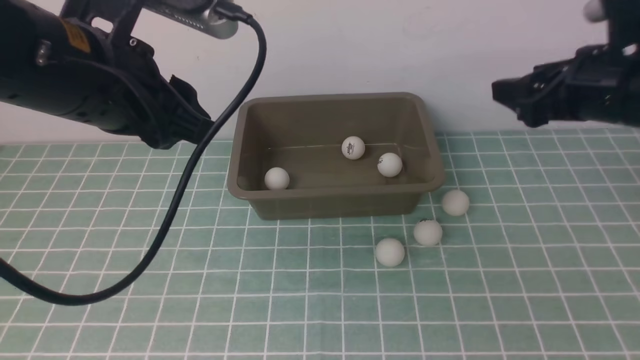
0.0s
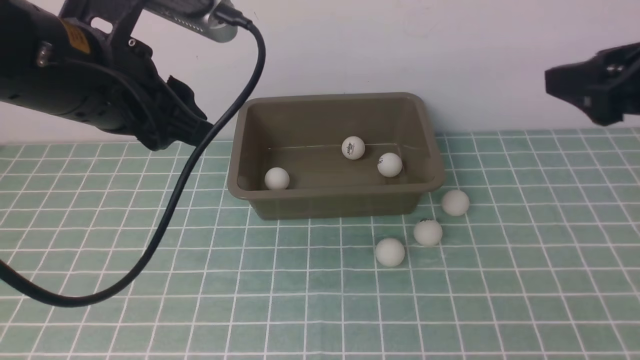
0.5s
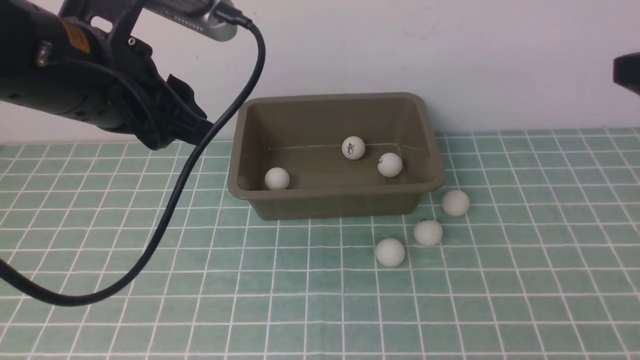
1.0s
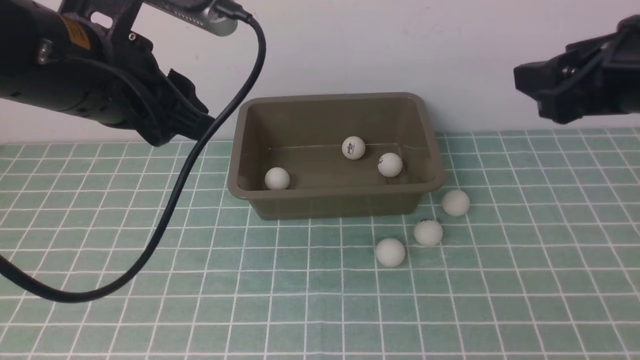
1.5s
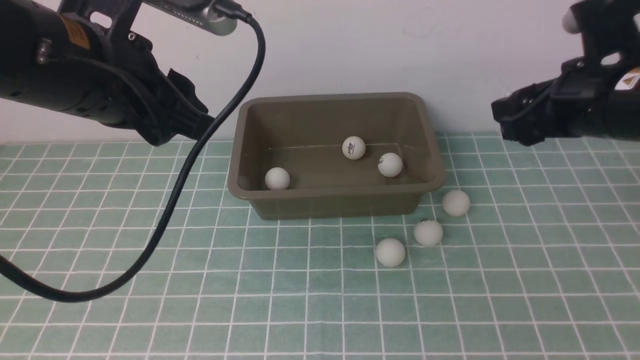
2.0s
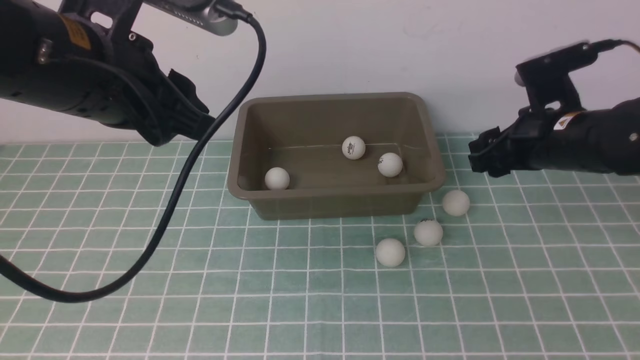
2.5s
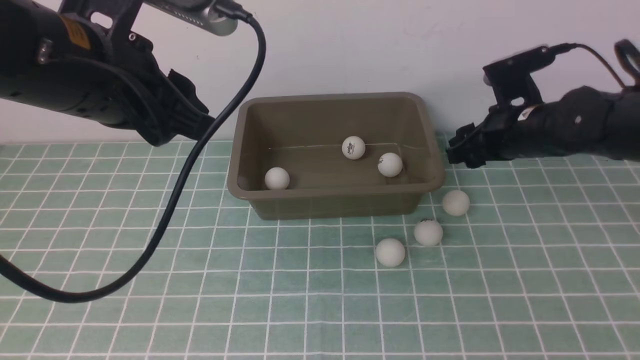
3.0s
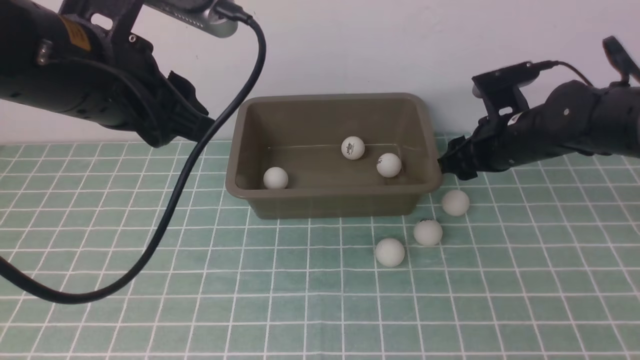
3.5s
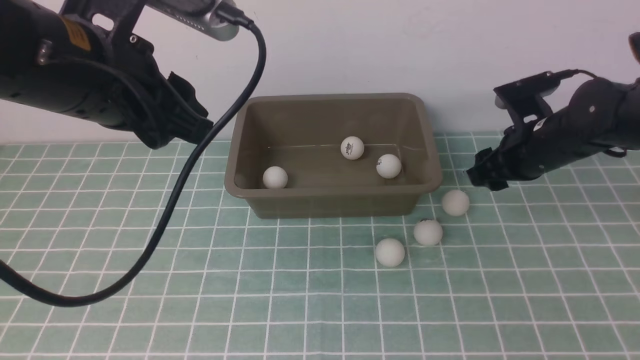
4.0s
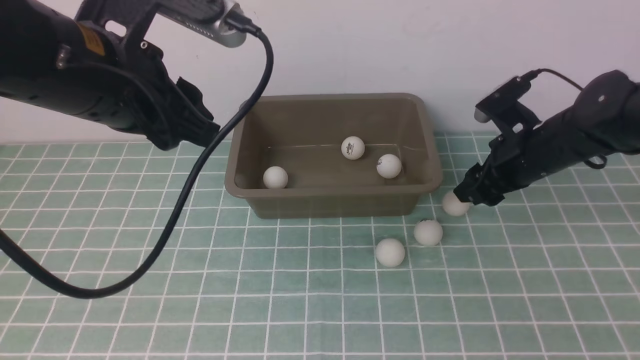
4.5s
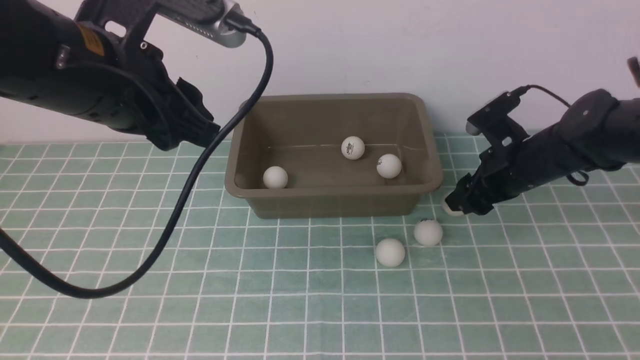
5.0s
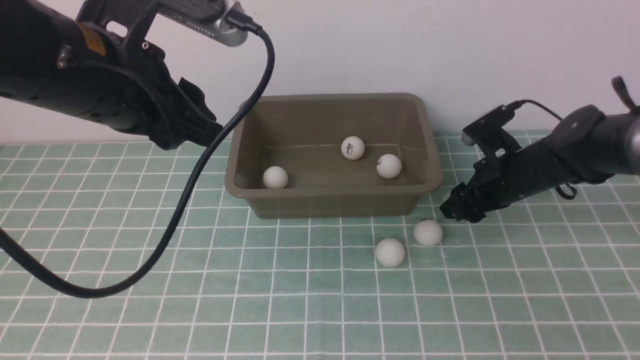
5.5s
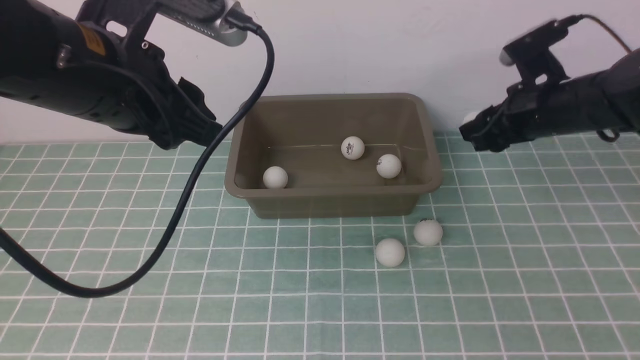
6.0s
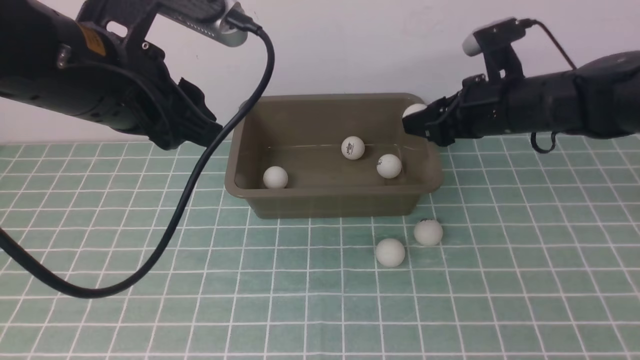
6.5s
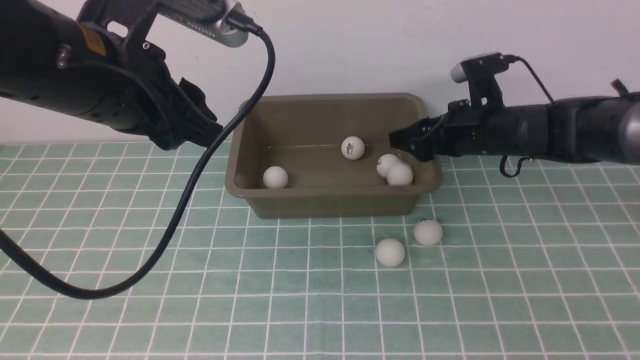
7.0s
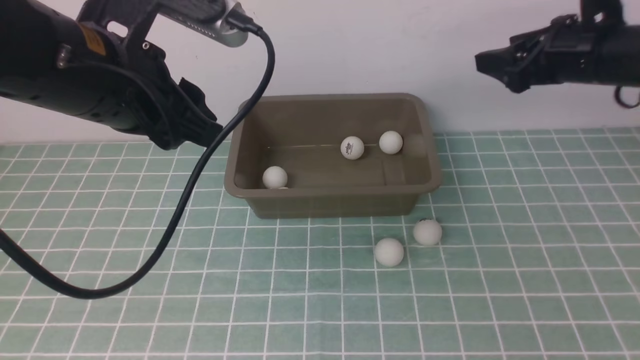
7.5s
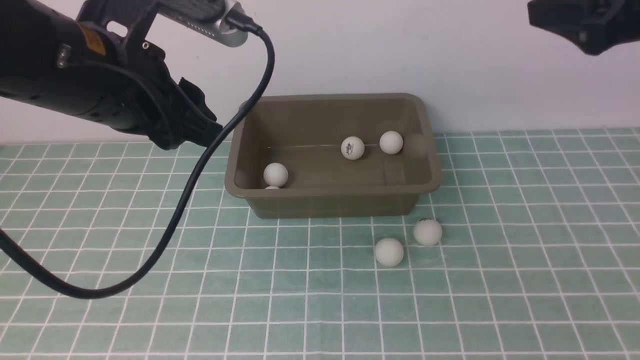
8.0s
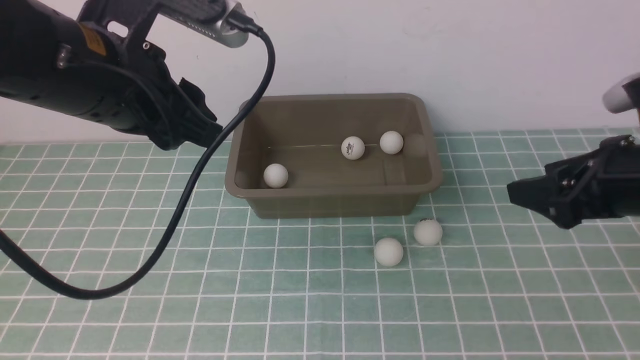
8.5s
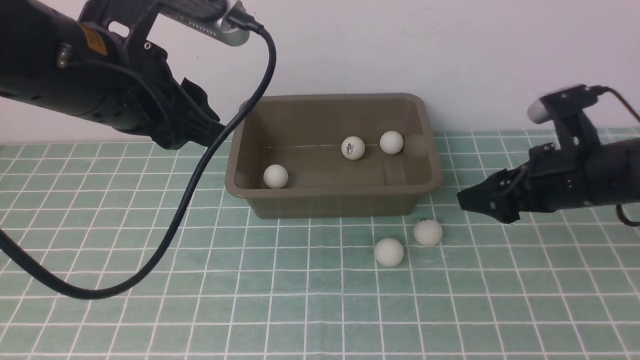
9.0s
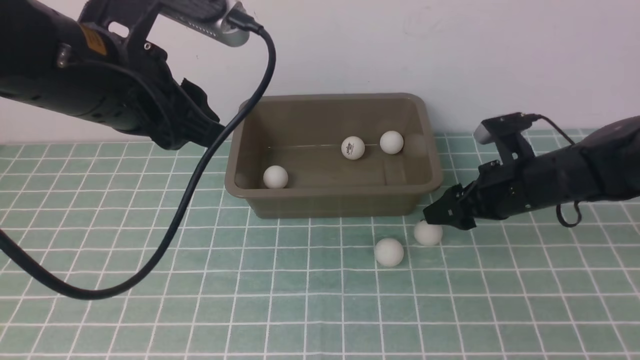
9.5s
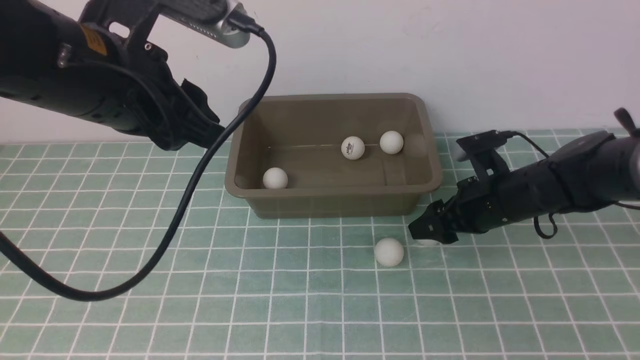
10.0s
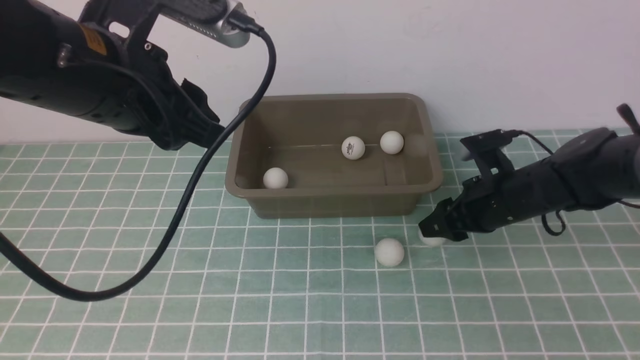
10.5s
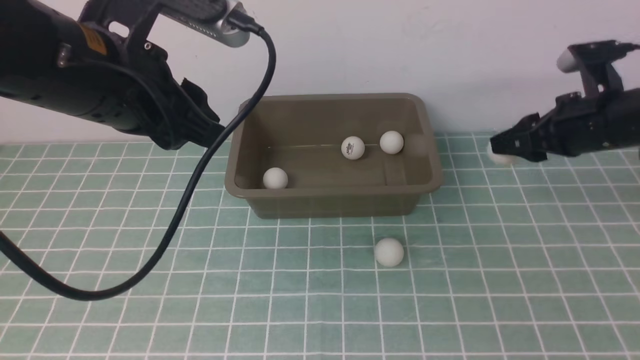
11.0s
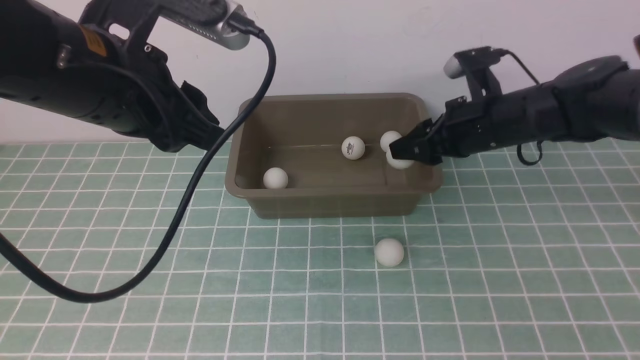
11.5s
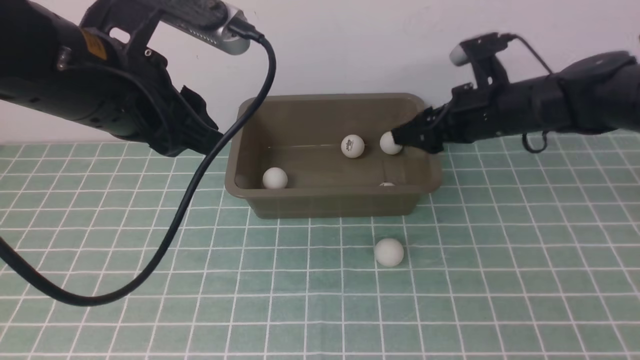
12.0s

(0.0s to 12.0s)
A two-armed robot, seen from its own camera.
Step, 0.0s - 5.5s: use the right arm to clamp the table tennis ball closest to it.
Step, 6.5s - 7.0s: use the right arm to put the table tennis ball into the box.
Step, 7.5s - 10.5s: use the right arm to clamp the table tennis ball closest to it.
Step, 11.0s - 11.5s: use the right arm to put the table tennis ball into the box.
0.0s - 2.0s: The right gripper shifts about 15 cm downward and forward.
2.0s - 4.0s: The right gripper moves downward and forward, approximately 10 cm.
4.0s - 6.0s: The right gripper goes some 5 cm upward.
6.0s - 8.0s: The right gripper is displaced backward, upward and to the right by roughly 20 cm, and opens.
8.0s - 10.0s: The right gripper shifts roughly 25 cm downward and forward.
10.0s - 12.0s: The right gripper goes about 15 cm upward, and closes, then opens again.

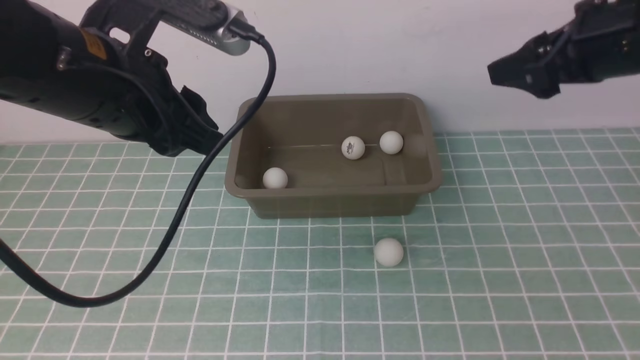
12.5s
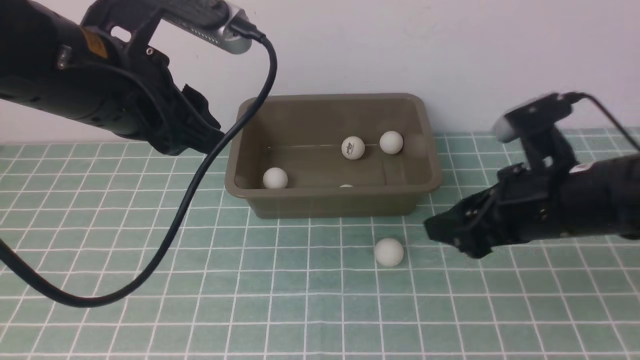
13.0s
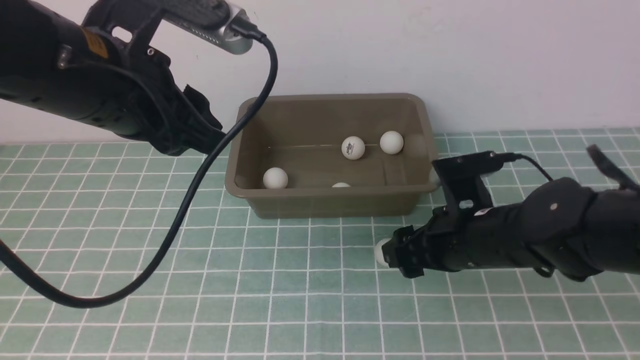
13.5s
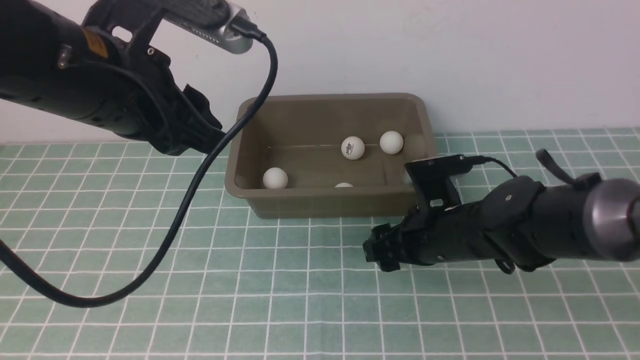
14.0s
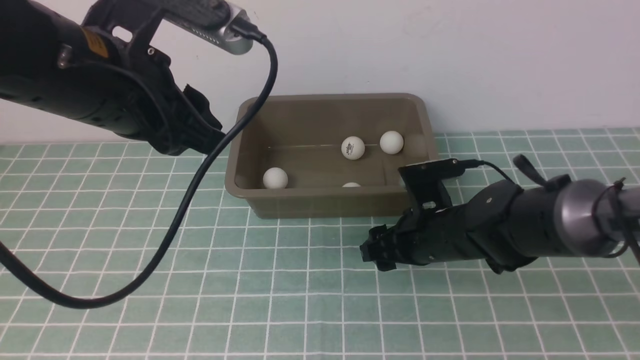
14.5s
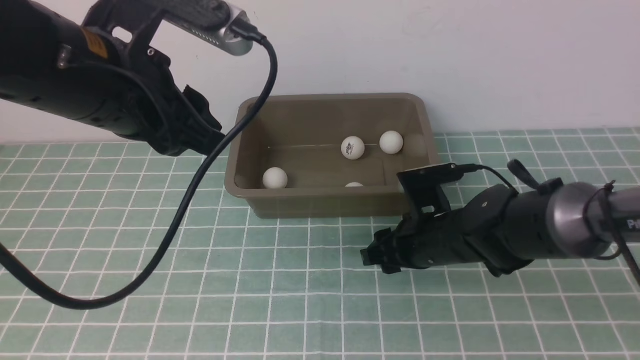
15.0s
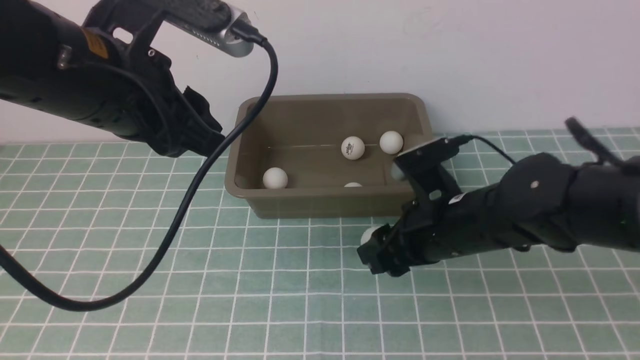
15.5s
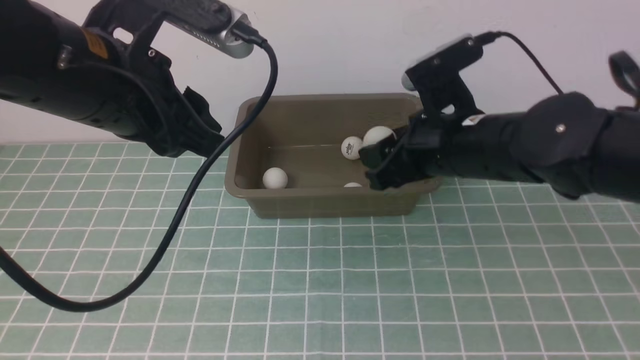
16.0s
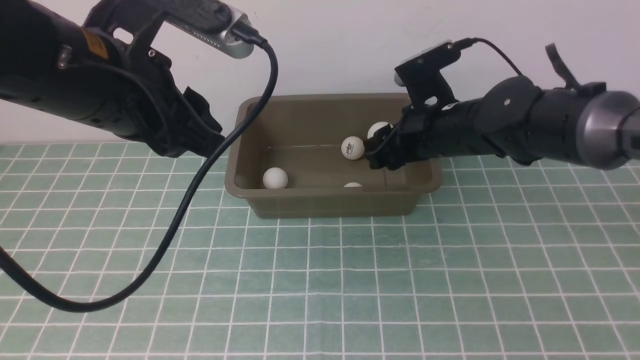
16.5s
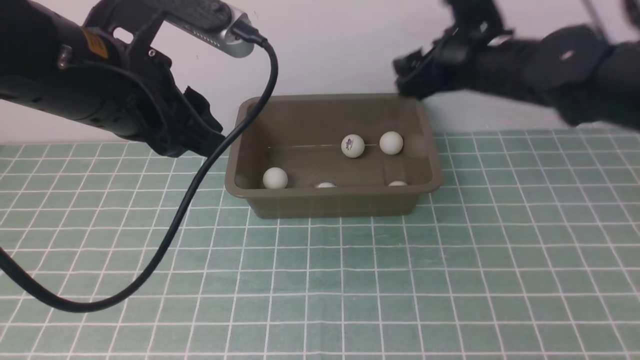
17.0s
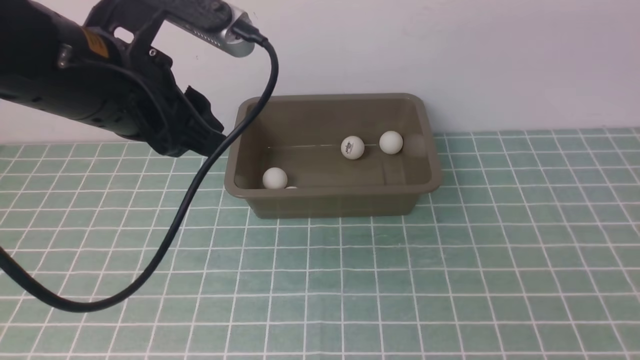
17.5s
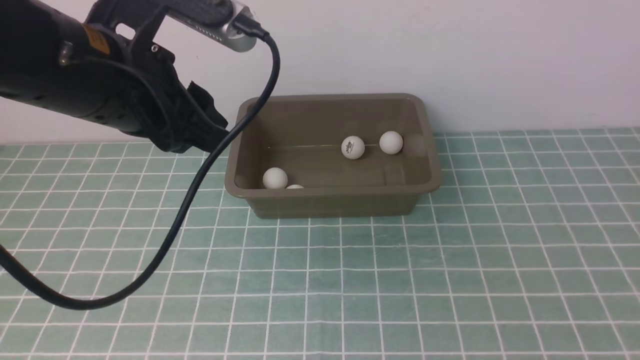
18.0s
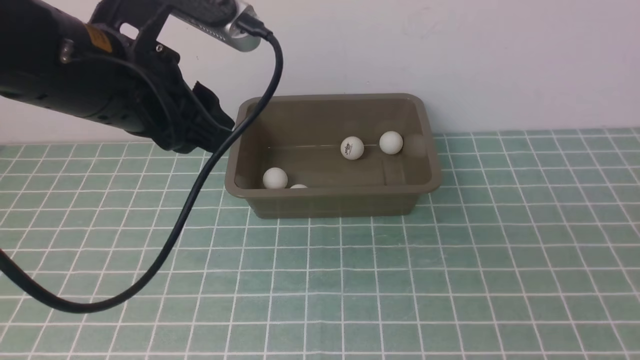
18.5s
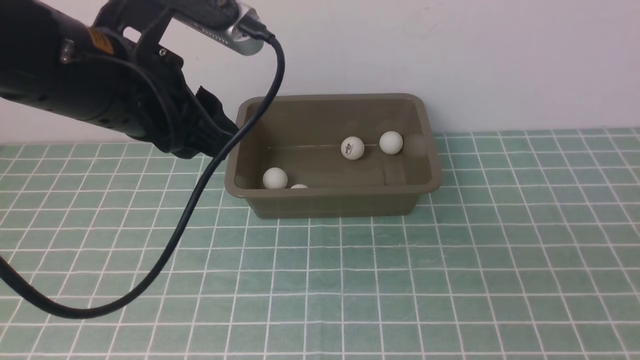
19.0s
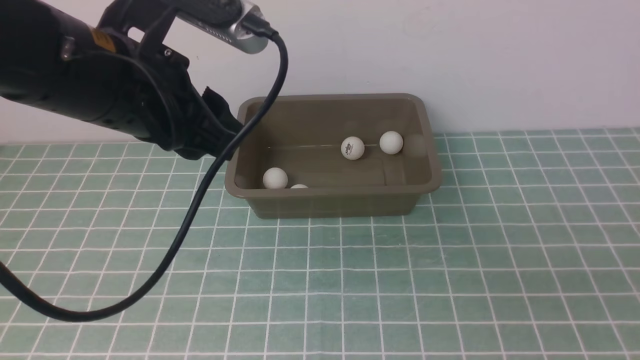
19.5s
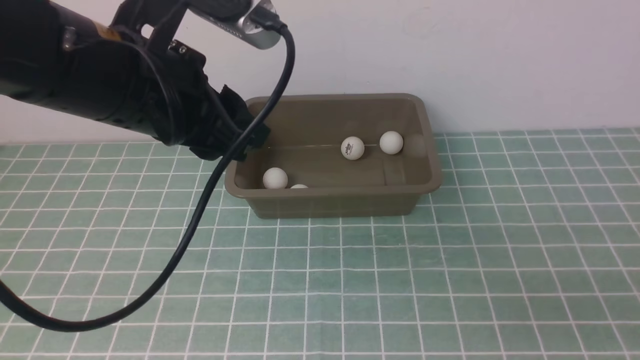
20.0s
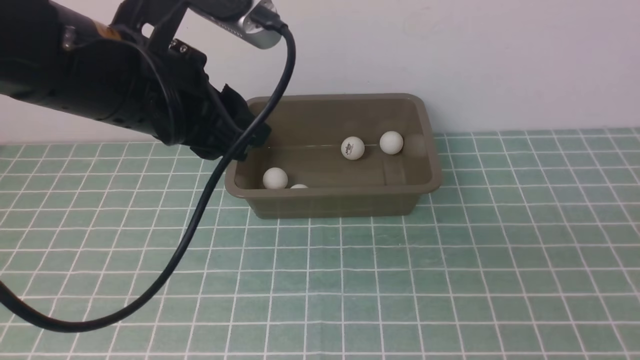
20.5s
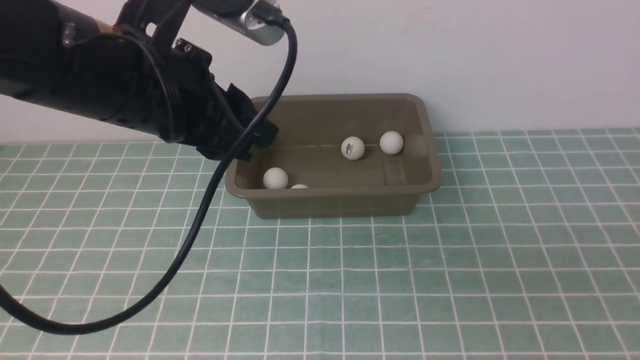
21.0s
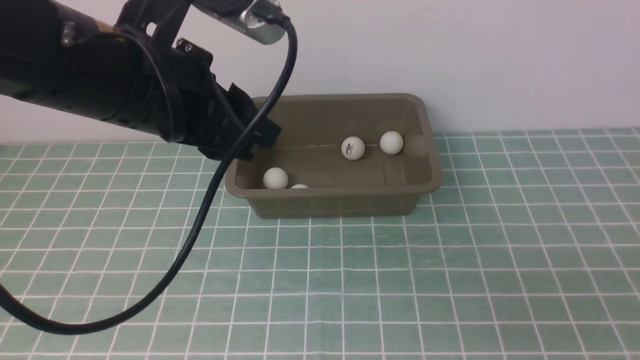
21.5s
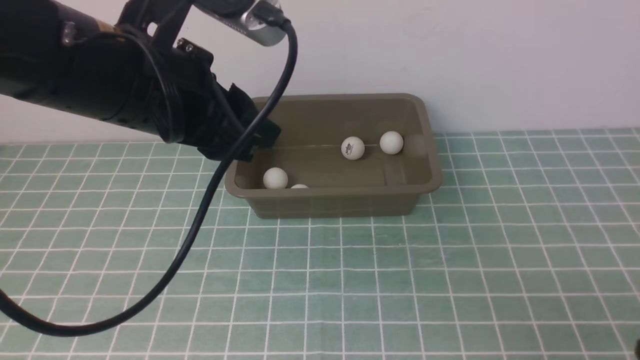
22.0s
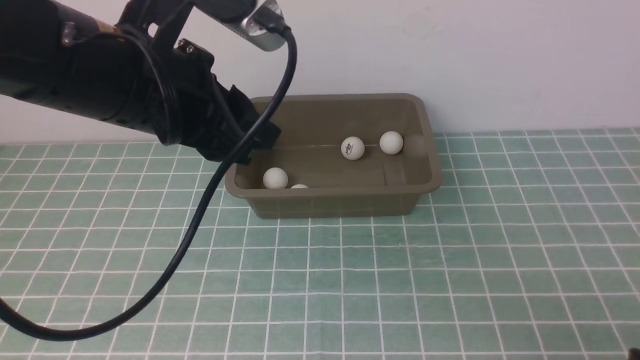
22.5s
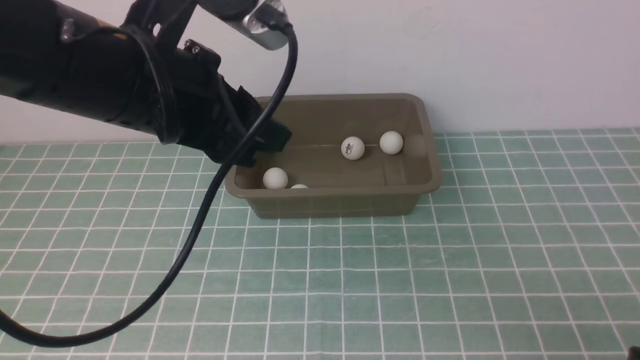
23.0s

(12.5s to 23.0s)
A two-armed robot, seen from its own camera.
Step, 12.5s - 15.0s: use the right arm to clamp the table tennis ball closest to it.
12.5s - 14.5s: The right gripper shifts approximately 20 cm downward and to the left, and closes up.
14.5s - 16.5s: The right gripper travels upward and forward by approximately 10 cm.
16.5s - 19.0s: The right gripper travels backward and to the right by approximately 35 cm, and opens, then closes once more.
19.0s - 21.0s: There are only small adjustments of the grippers.
21.0s - 23.0s: The right gripper is displaced downward by roughly 10 cm.
